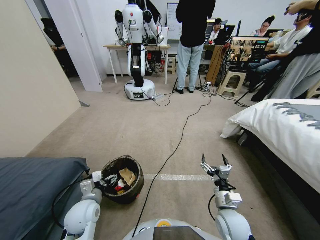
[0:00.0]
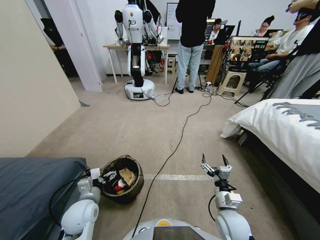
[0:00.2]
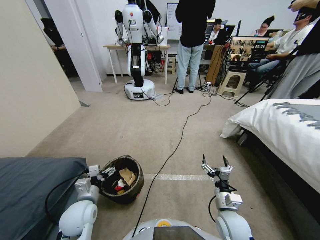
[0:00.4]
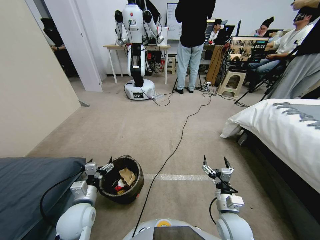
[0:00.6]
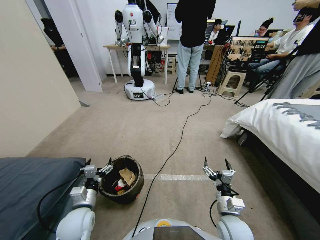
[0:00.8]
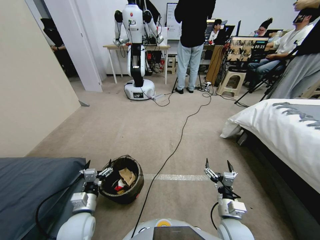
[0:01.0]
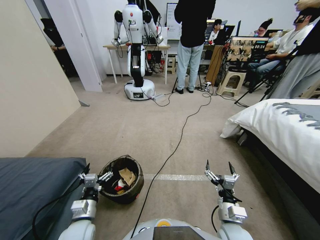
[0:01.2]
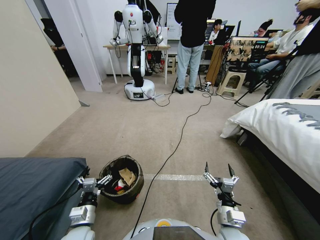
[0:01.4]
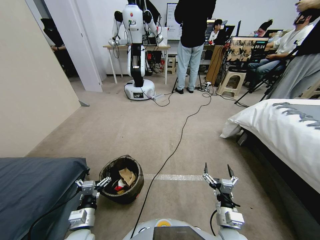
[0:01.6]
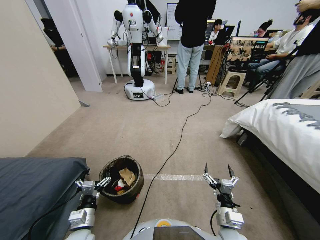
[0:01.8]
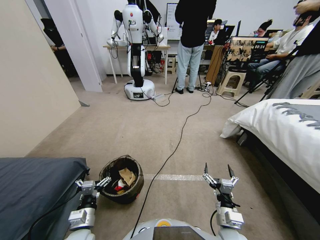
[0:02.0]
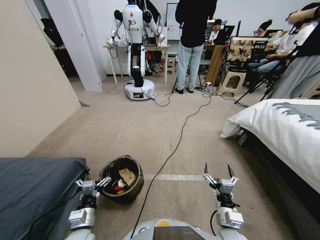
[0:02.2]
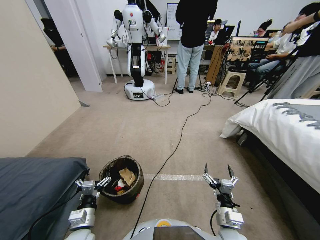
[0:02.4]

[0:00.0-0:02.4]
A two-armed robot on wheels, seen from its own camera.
Task of the whole recording: Pick up the trash bin, then pick up the garbage from the floor and place it into the trash bin.
0:00.0 to 0:01.2: The right gripper moves approximately 5 cm, while the left gripper moves backward, about 5 cm.
0:01.2 to 0:02.4: The grippers make only small movements.

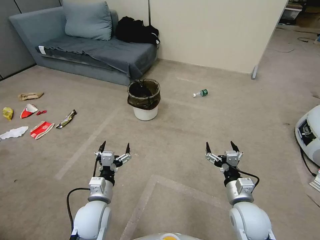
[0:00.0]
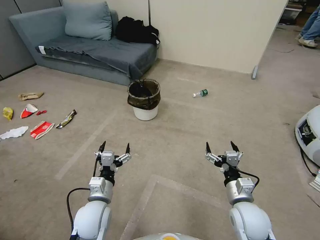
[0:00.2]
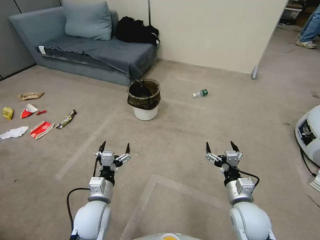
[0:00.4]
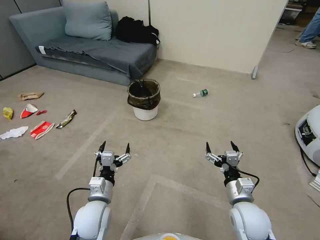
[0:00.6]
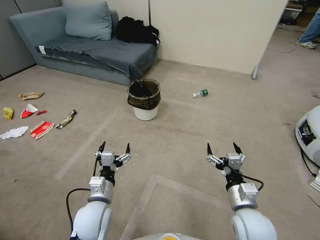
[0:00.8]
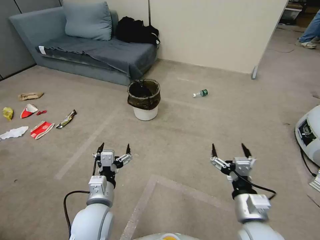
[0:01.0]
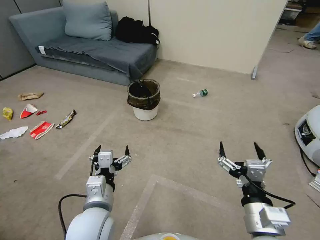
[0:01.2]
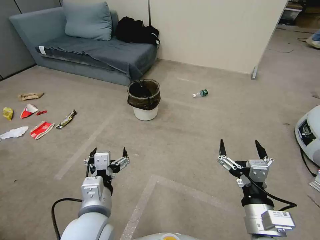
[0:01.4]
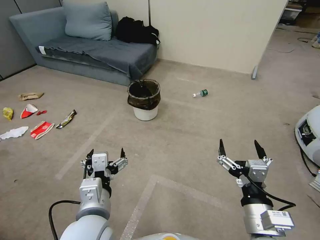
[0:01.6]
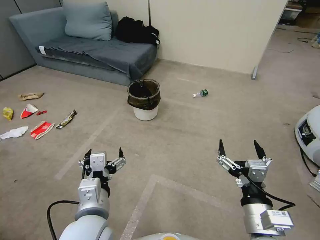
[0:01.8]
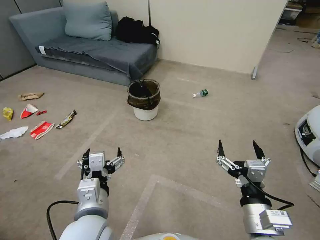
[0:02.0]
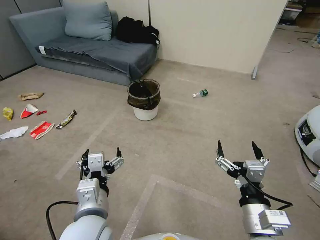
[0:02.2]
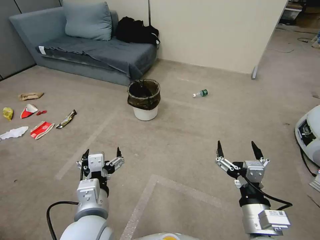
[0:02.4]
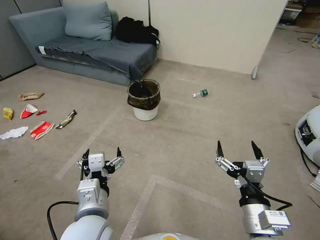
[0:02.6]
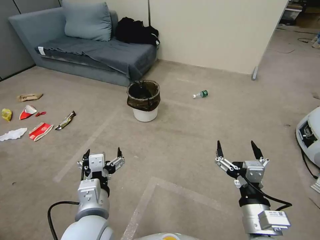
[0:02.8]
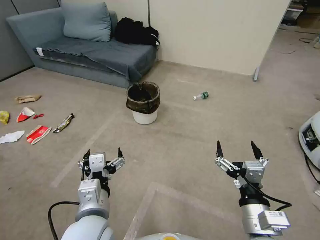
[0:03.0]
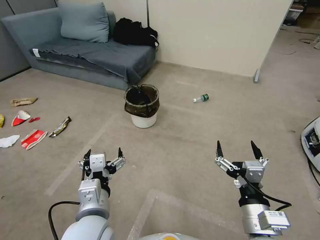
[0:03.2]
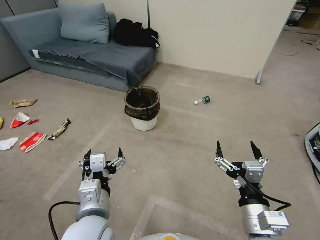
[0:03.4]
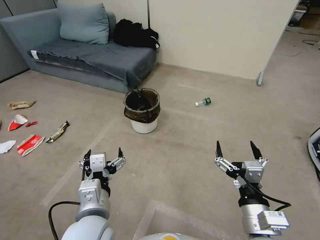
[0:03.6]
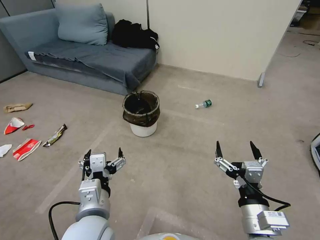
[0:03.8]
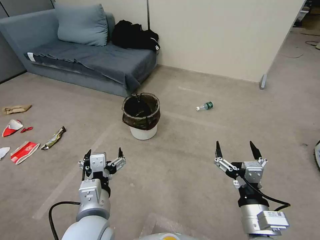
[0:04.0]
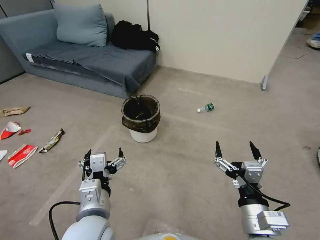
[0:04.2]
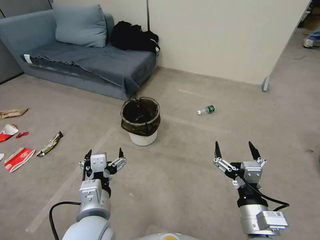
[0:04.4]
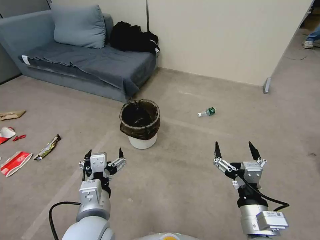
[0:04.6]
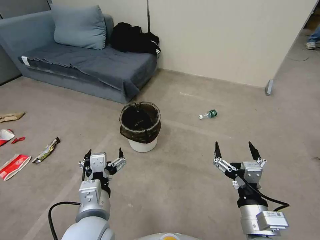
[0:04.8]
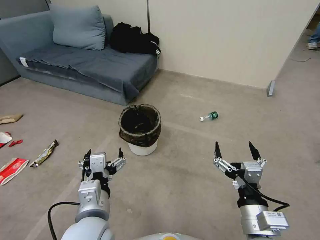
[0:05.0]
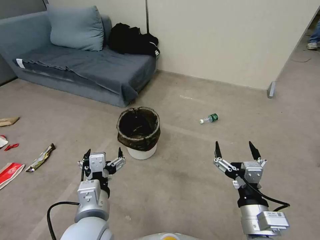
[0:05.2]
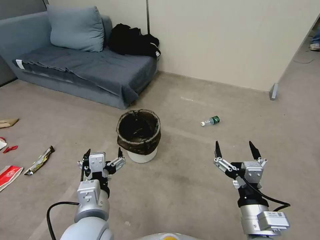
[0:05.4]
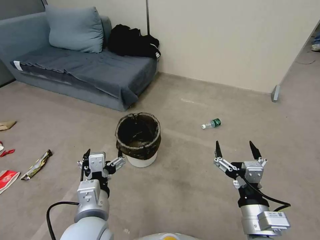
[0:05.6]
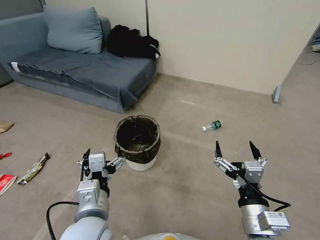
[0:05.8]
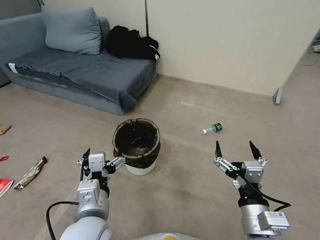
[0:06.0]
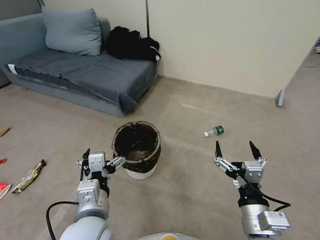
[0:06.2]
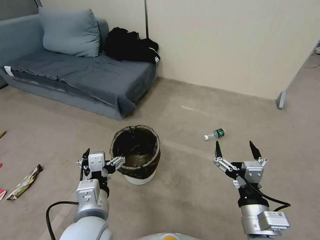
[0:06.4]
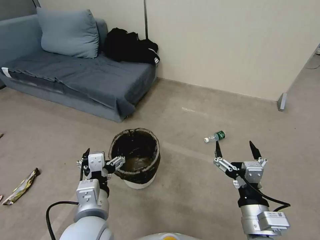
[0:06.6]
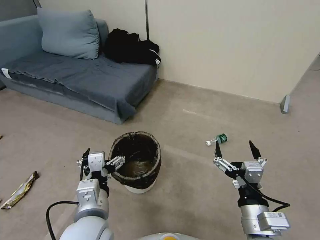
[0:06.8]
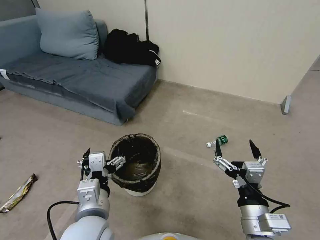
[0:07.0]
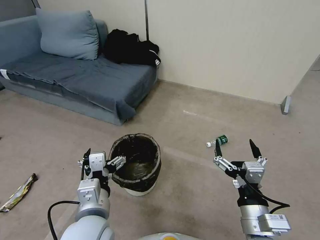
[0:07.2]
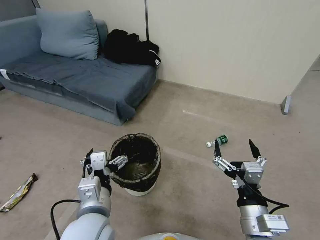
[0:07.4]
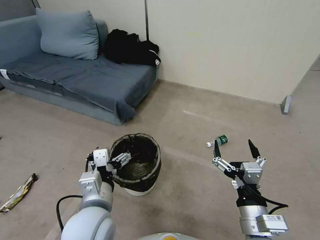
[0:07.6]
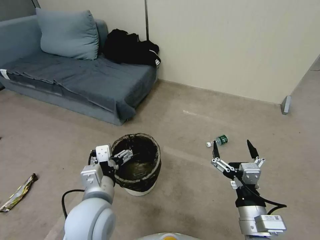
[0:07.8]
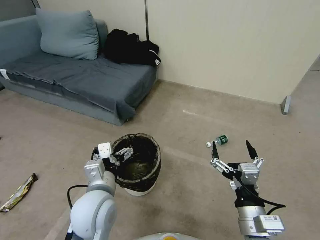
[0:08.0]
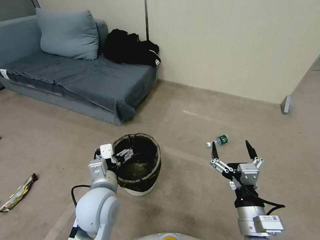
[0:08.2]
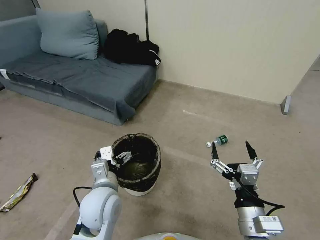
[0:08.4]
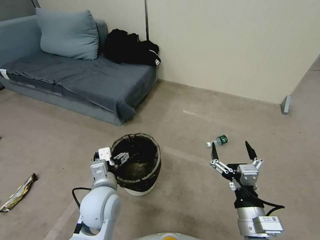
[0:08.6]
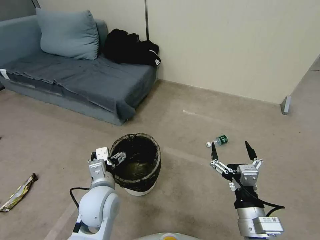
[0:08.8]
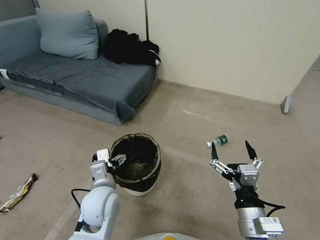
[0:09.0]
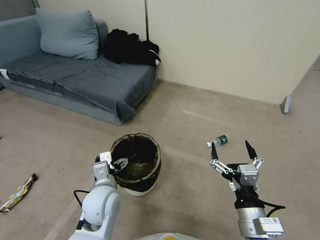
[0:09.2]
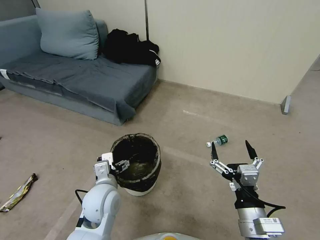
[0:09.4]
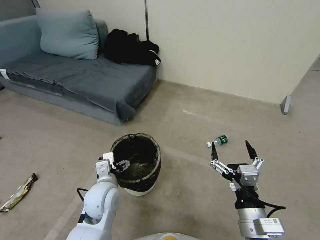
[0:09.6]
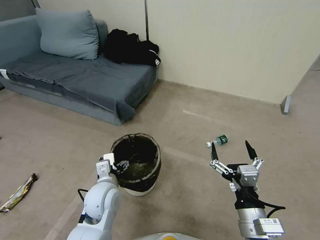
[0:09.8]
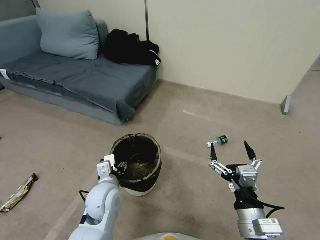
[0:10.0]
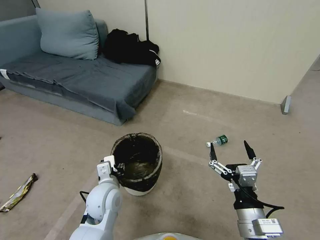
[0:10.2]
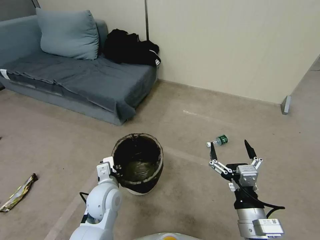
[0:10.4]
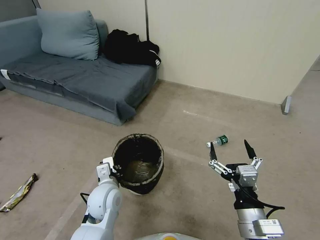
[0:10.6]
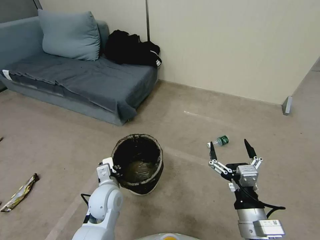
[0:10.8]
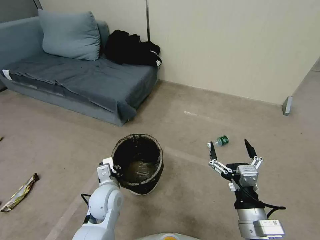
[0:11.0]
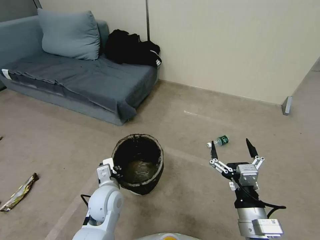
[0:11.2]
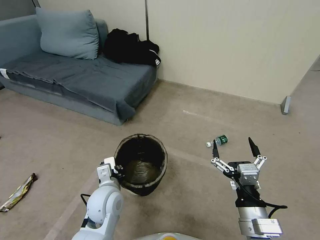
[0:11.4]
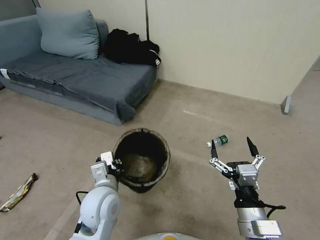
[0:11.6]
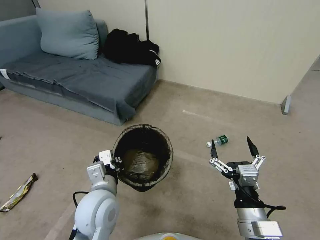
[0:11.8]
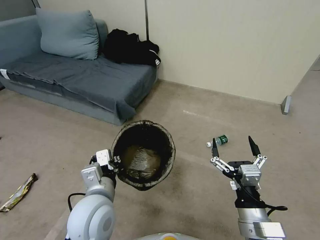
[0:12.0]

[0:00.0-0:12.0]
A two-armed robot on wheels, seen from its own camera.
Task of the whole recording: Pick up the trash bin, then pick up the garbage from the floor and place it into the trash bin.
0:01.6 to 0:03.0: Both grippers stay put.
0:06.0 to 0:07.6: There are only small adjustments of the grippers.
0:07.6 to 0:09.0: The left gripper heads downward and forward, covering roughly 10 cm.
0:09.0 to 0:10.4: The left gripper closes up.
0:10.4 to 0:12.0: The left gripper travels upward and backward by some 10 cm.

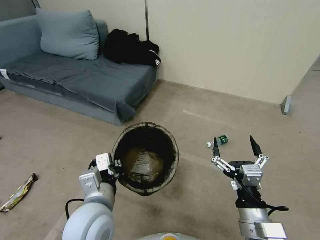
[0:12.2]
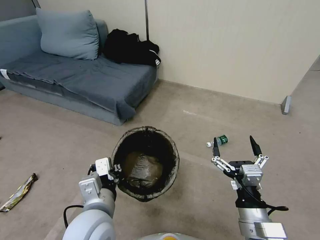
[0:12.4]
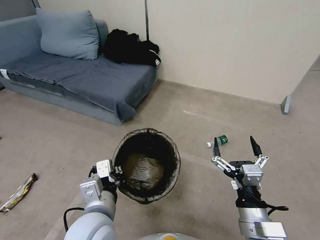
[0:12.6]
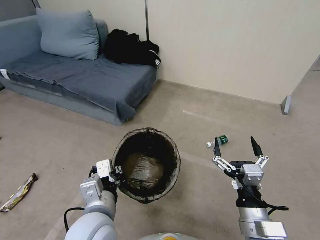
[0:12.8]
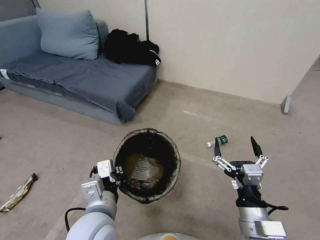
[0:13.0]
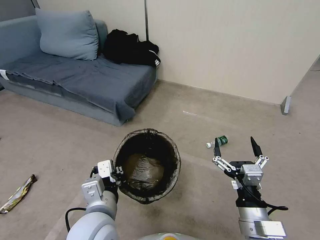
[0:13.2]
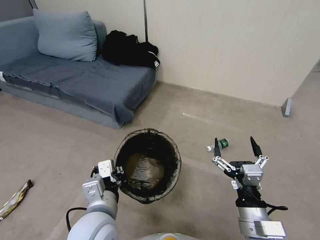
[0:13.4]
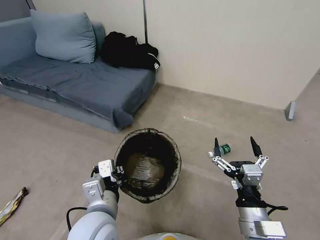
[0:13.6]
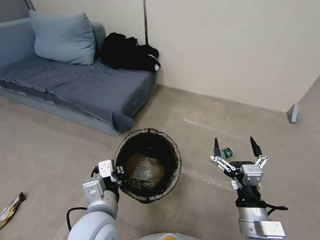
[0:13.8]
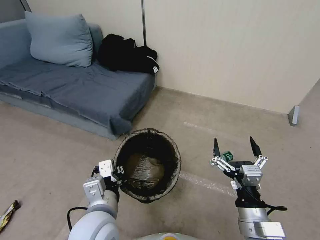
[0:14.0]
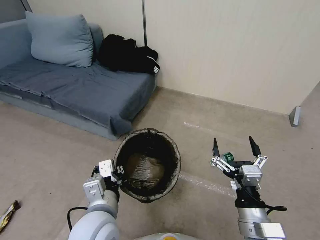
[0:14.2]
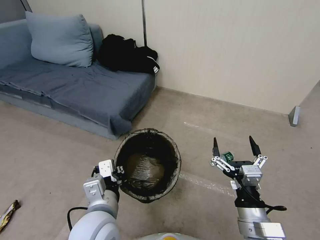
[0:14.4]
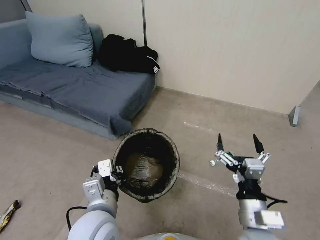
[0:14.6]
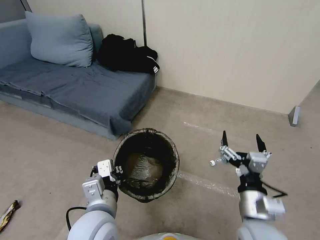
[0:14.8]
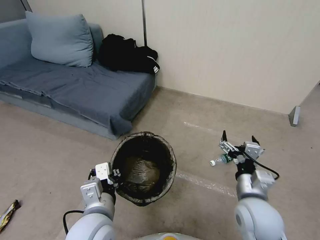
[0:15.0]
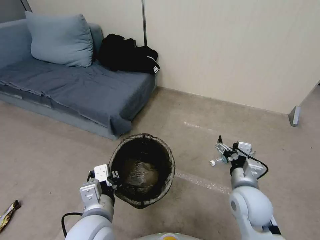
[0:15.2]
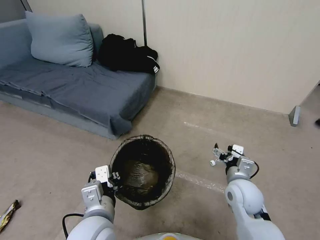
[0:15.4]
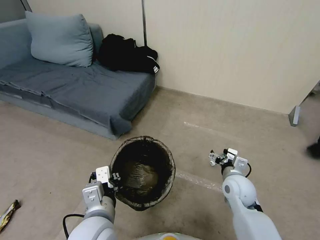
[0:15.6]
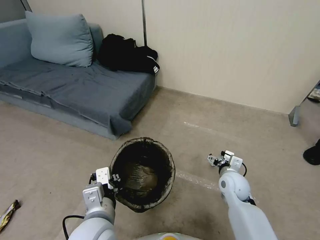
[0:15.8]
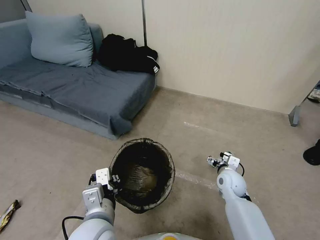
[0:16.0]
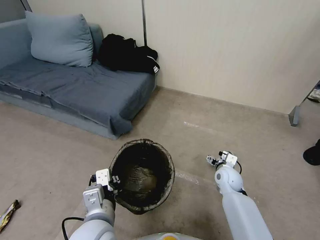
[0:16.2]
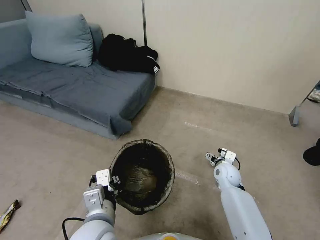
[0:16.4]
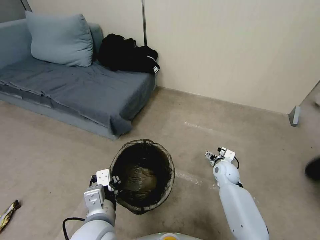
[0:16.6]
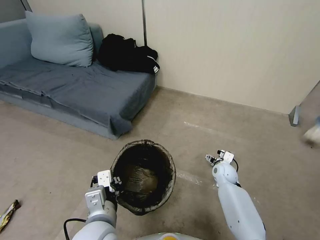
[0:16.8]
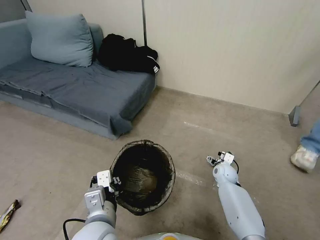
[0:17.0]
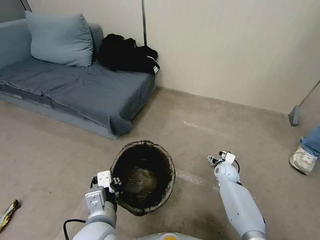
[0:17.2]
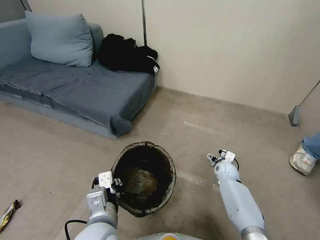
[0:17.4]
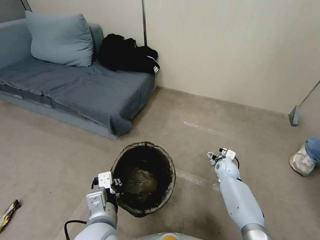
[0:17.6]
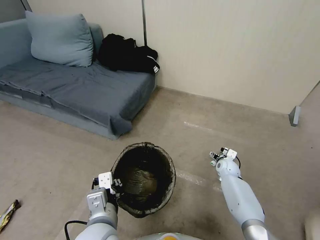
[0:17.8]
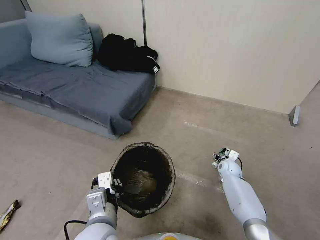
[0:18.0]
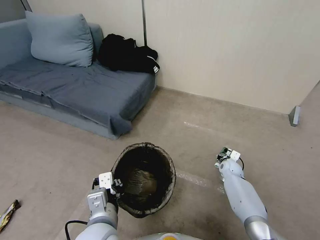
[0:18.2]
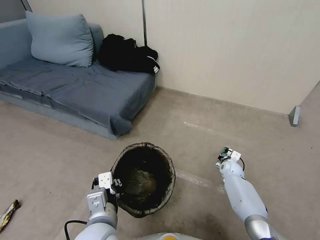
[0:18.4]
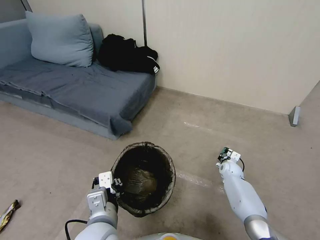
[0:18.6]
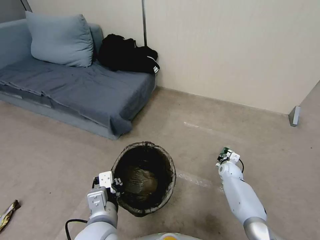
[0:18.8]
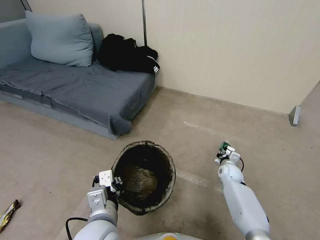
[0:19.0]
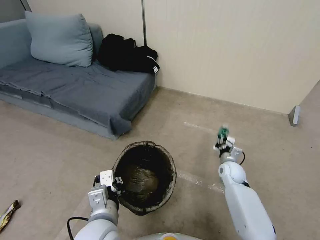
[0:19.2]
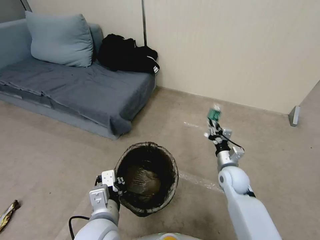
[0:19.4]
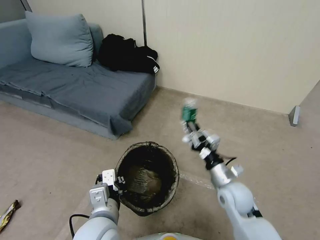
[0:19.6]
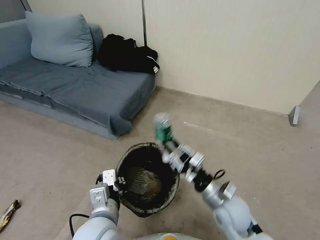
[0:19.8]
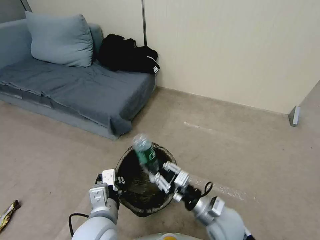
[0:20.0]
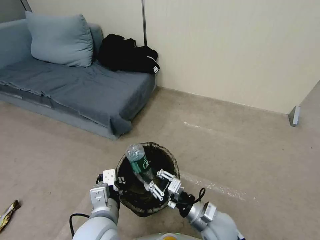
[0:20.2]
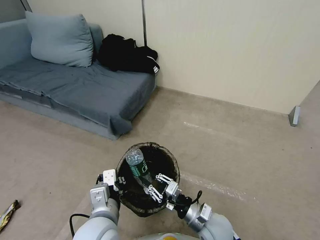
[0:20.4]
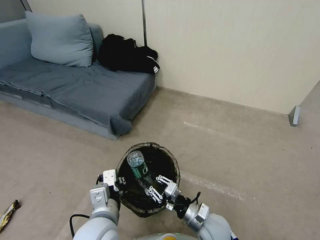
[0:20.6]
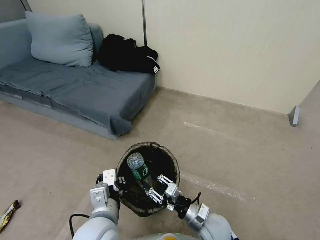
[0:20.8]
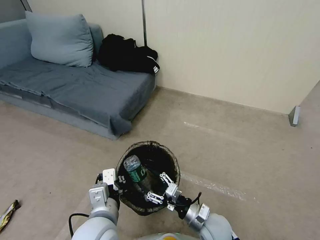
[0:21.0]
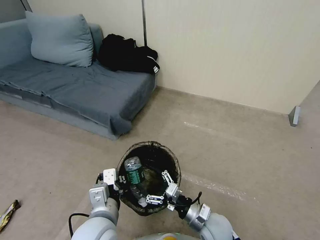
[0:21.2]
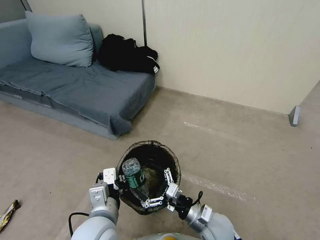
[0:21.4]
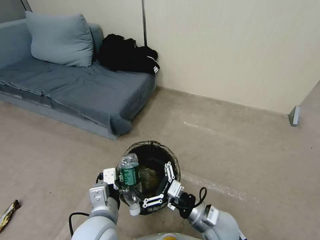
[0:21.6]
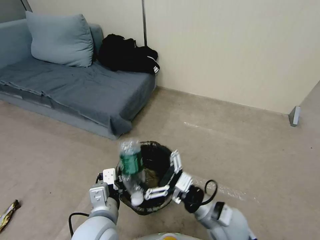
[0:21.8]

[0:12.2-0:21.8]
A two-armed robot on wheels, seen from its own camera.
Task of the whole recording: Pick up the trash bin, then pick up the garbage from the floor and place it into the trash bin.
0:12.2 to 0:13.8: The grippers move only a little.
0:13.8 to 0:15.4: The right gripper moves forward, approximately 15 cm.
0:15.4 to 0:17.0: The right gripper shifts roughly 20 cm downward and forward.
0:17.0 to 0:18.6: The right gripper shifts by about 5 cm, and closes up.
0:18.6 to 0:20.2: The right gripper moves backward, to the left and upward, approximately 30 cm.
0:20.2 to 0:21.8: The right gripper is displaced upward by about 10 cm, and opens its fingers.
